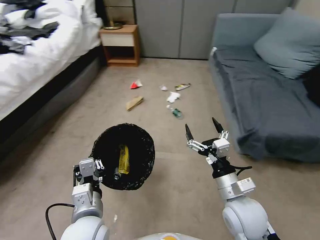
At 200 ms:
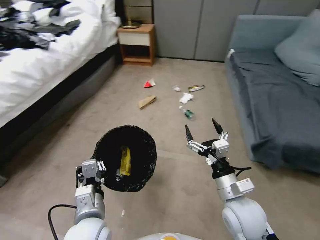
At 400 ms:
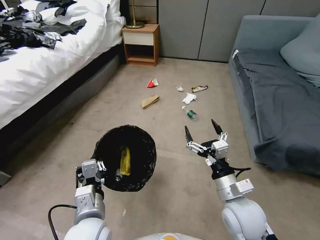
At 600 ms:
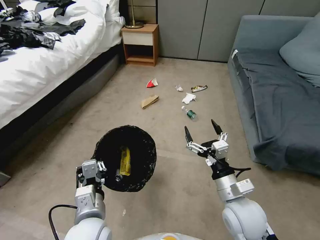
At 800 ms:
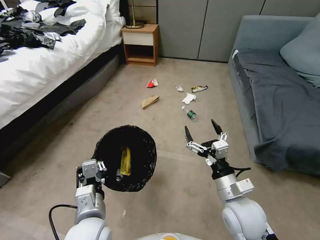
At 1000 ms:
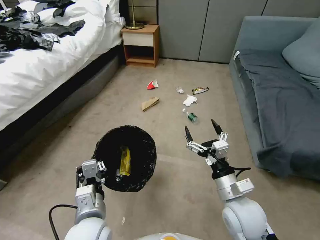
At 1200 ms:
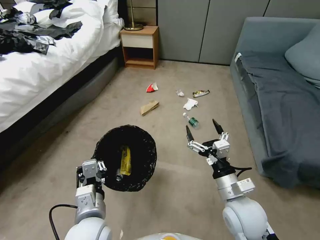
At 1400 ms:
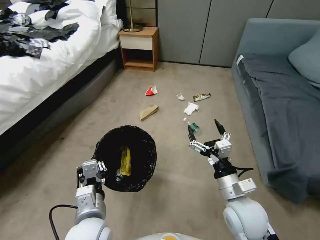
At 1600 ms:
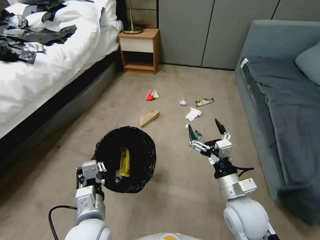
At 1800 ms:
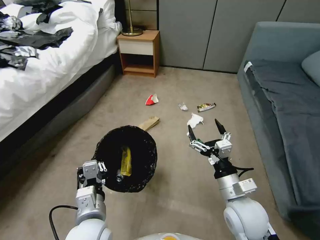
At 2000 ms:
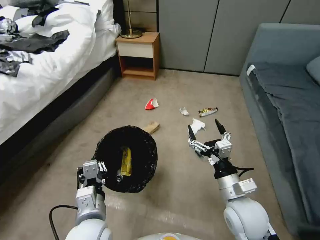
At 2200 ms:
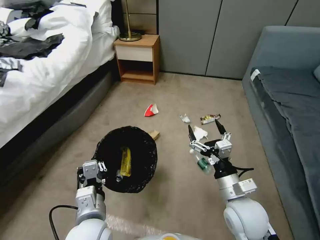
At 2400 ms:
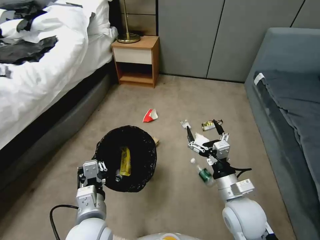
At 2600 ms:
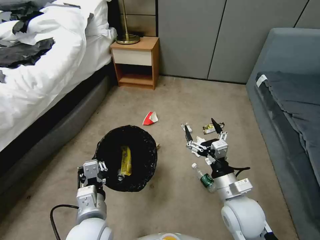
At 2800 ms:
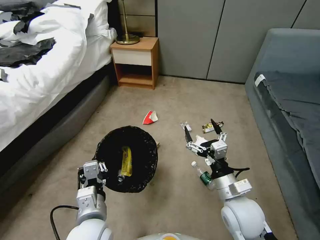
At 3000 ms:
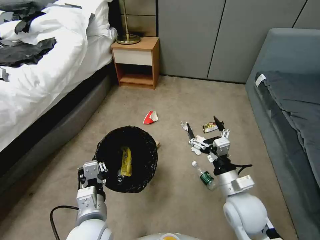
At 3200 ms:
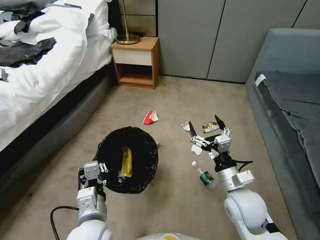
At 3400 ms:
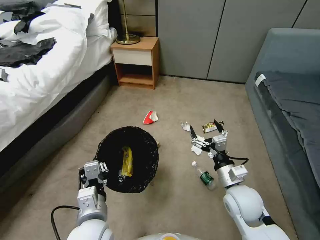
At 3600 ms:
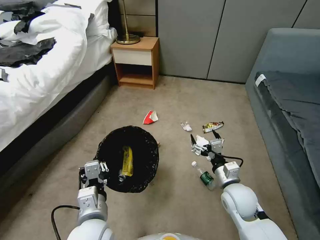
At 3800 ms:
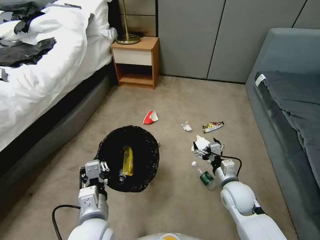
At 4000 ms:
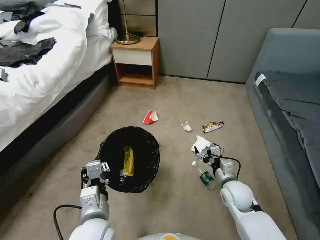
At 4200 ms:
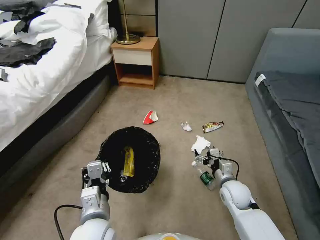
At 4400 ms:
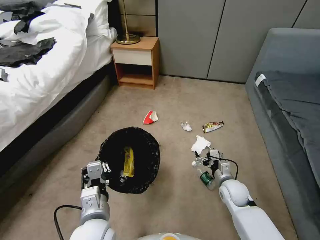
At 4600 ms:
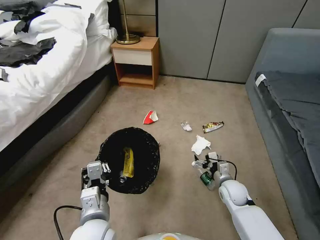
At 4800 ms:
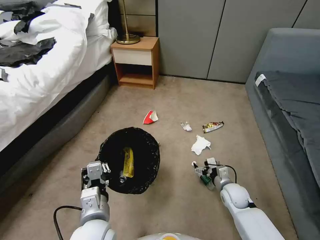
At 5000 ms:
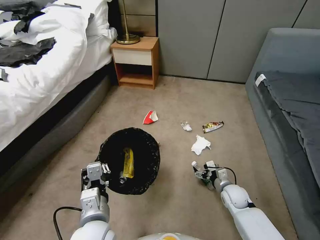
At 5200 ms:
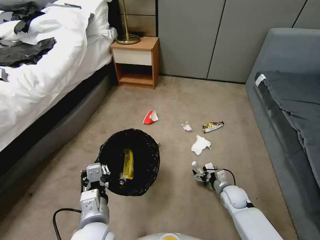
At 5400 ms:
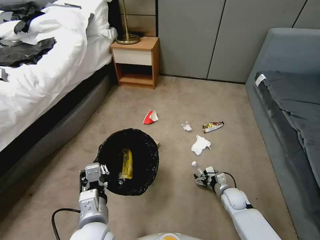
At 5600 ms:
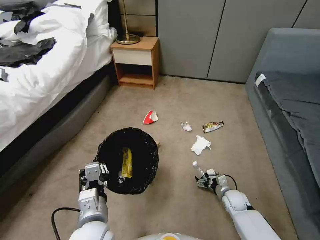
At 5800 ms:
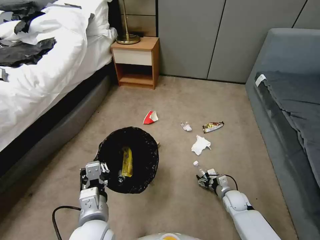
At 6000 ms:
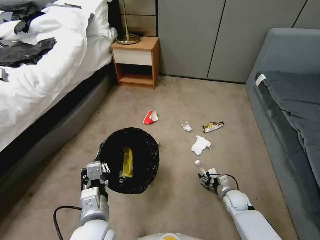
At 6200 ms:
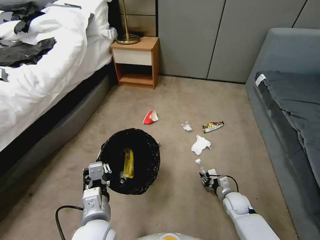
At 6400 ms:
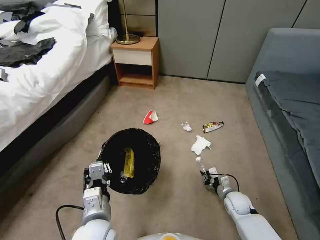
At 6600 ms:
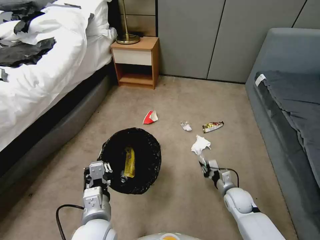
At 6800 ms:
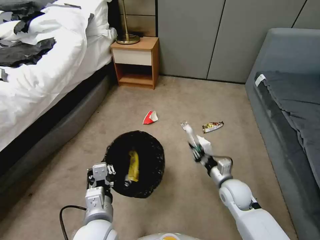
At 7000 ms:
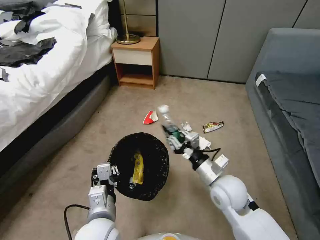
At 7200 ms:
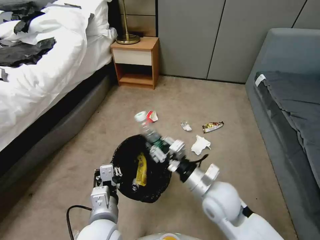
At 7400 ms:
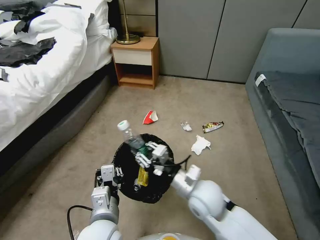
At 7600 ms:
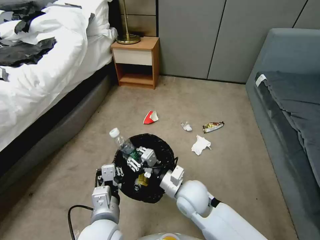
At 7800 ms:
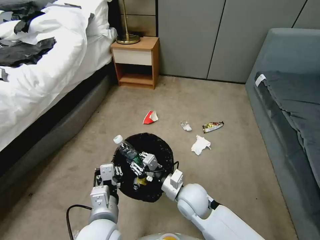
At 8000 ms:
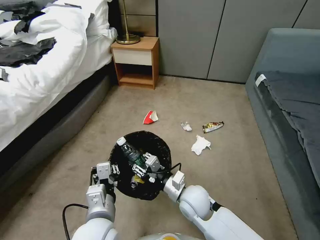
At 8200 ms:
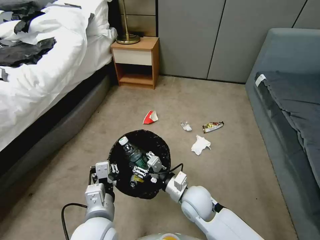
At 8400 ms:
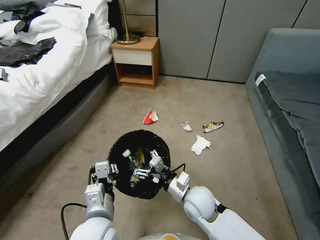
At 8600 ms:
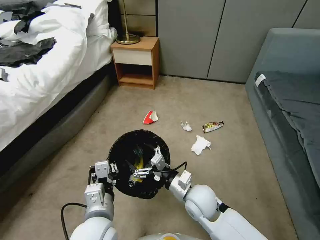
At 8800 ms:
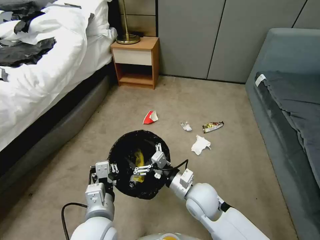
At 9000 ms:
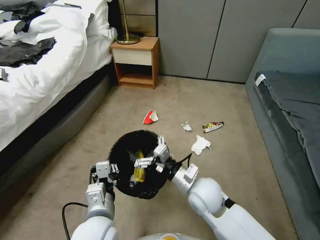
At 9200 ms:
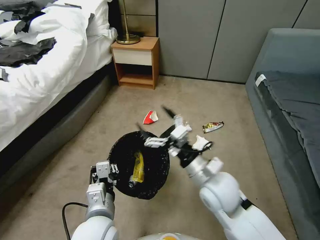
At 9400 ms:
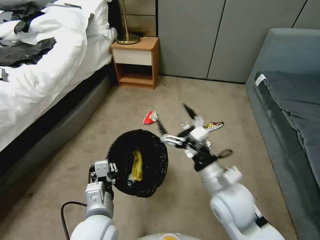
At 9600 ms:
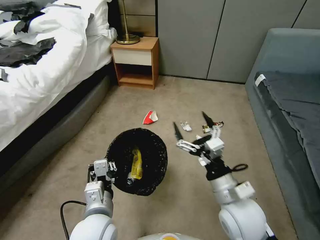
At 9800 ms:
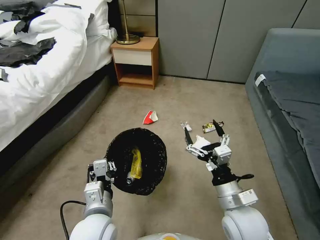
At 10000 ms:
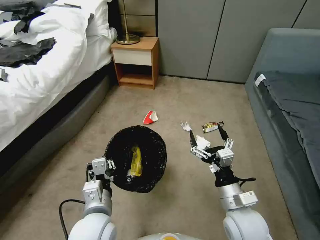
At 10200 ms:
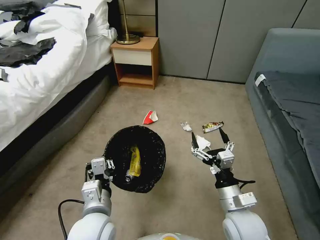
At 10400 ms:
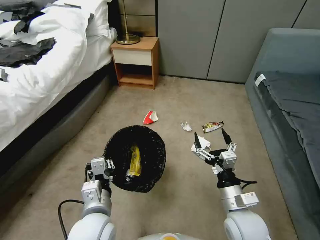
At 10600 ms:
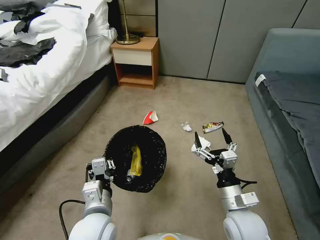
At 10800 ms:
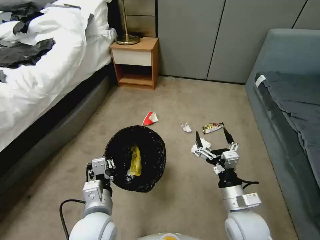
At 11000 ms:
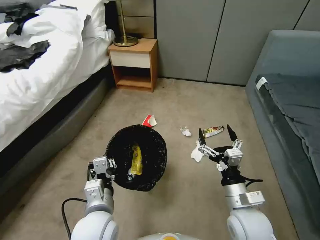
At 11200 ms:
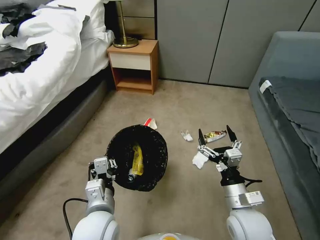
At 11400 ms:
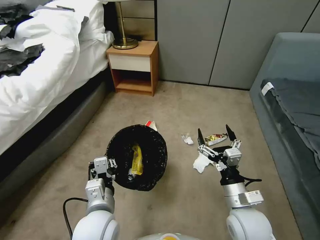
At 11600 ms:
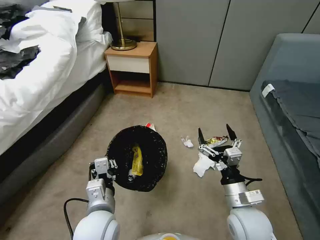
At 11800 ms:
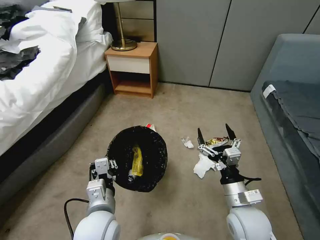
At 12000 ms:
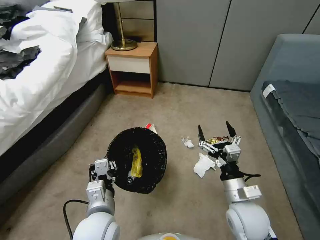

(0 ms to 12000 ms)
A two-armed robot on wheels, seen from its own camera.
Task of the whole recording: Pick up the trash bin, then pick up the garbage from the floor and place it into the trash bin.
3000 ms - 4400 ms: The right gripper heads downward and forward, covering some 15 cm.
4400 ms - 6000 ms: The right gripper shifts about 10 cm downward, and closes up.
6000 ms - 7600 ms: The right gripper heads to the left and upward, covering about 30 cm, and closes its fingers.
7600 ms - 9000 ms: The right gripper moves about 5 cm, and opens up.
9000 ms - 10400 ms: The right gripper moves to the right and backward, some 10 cm.

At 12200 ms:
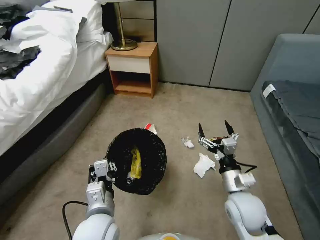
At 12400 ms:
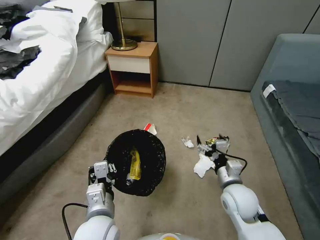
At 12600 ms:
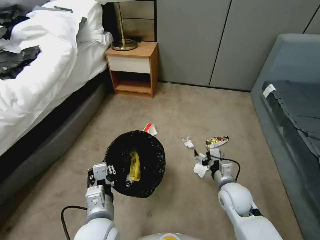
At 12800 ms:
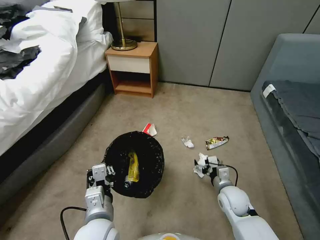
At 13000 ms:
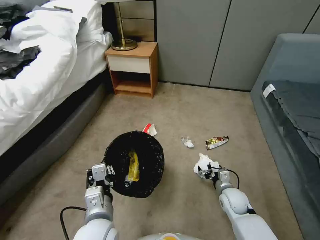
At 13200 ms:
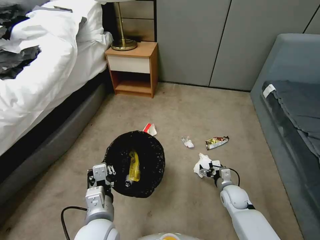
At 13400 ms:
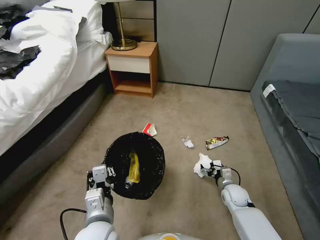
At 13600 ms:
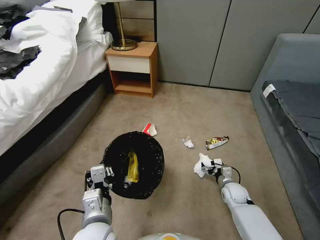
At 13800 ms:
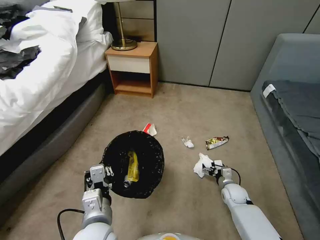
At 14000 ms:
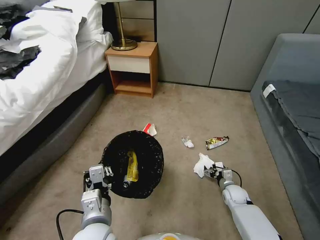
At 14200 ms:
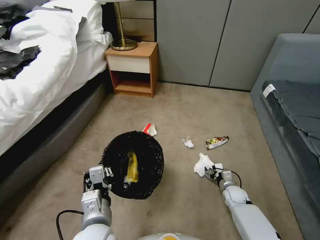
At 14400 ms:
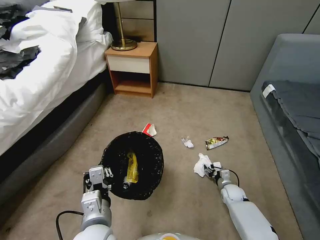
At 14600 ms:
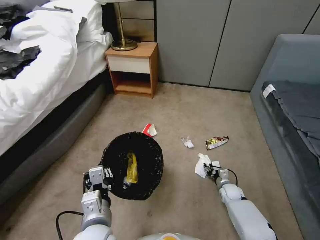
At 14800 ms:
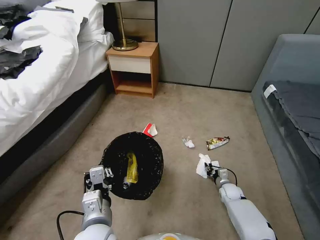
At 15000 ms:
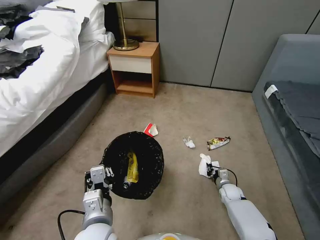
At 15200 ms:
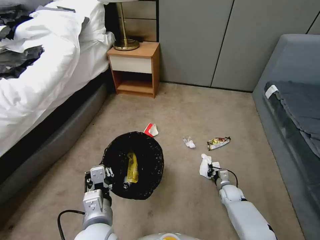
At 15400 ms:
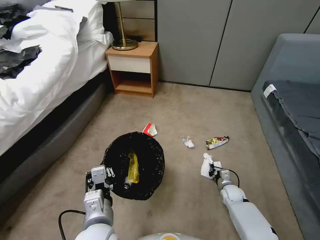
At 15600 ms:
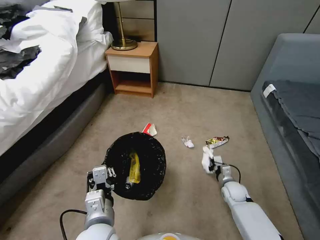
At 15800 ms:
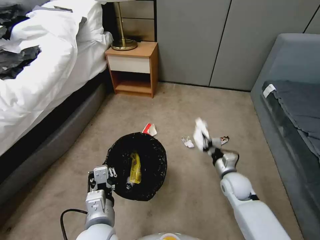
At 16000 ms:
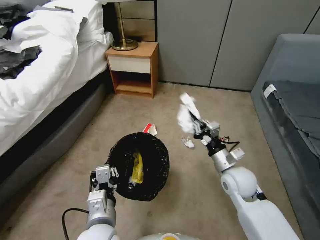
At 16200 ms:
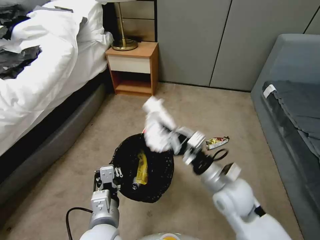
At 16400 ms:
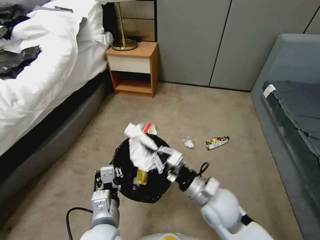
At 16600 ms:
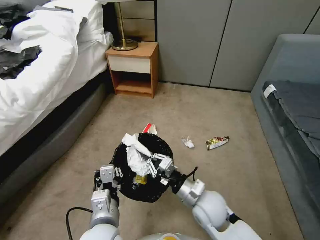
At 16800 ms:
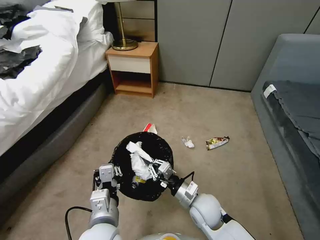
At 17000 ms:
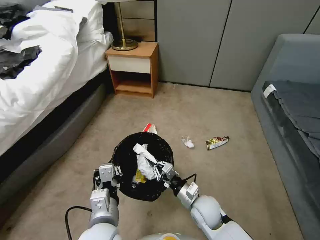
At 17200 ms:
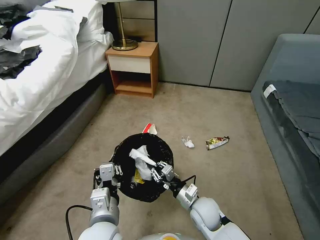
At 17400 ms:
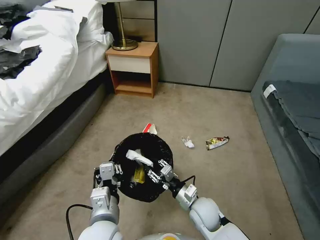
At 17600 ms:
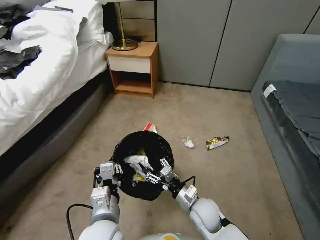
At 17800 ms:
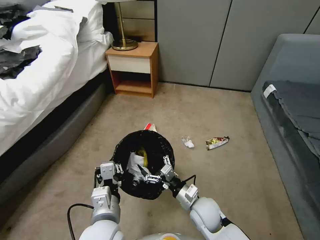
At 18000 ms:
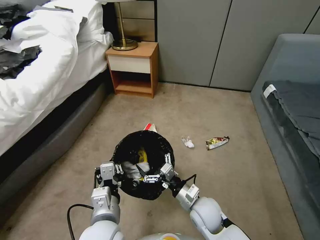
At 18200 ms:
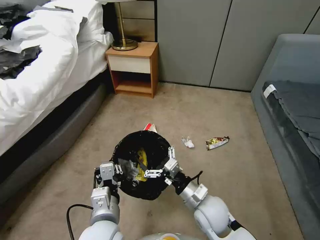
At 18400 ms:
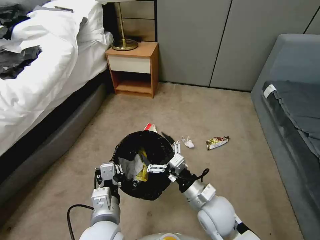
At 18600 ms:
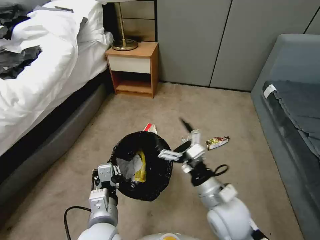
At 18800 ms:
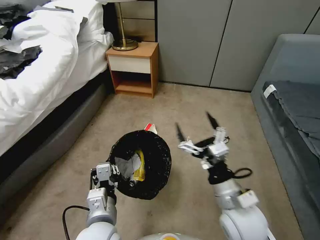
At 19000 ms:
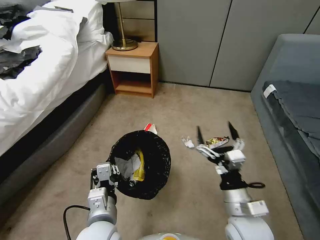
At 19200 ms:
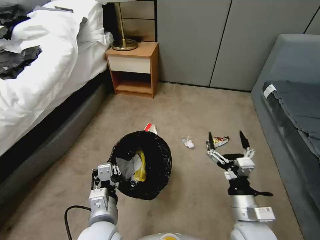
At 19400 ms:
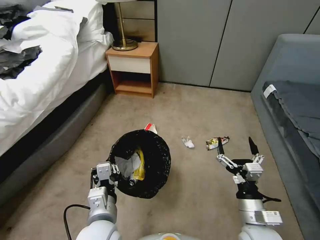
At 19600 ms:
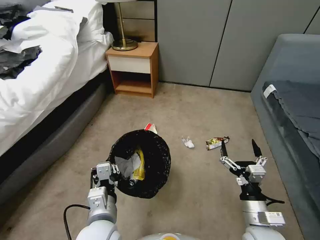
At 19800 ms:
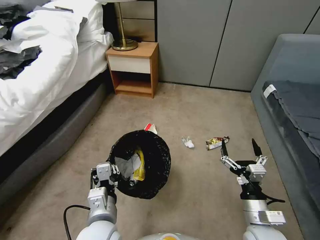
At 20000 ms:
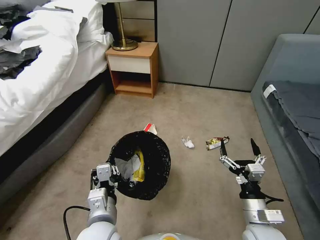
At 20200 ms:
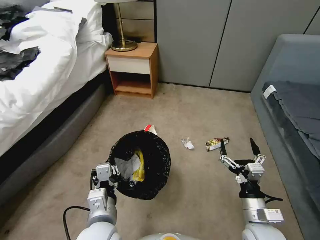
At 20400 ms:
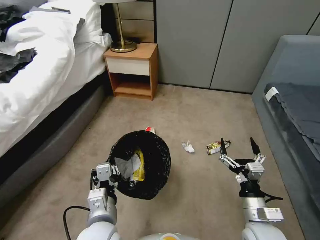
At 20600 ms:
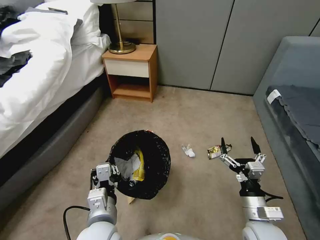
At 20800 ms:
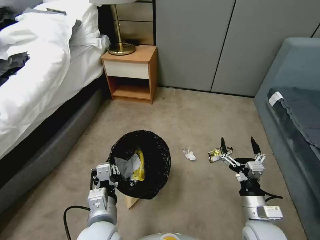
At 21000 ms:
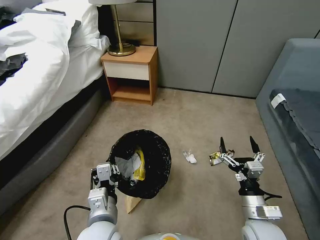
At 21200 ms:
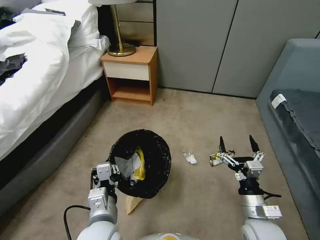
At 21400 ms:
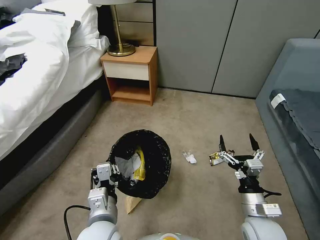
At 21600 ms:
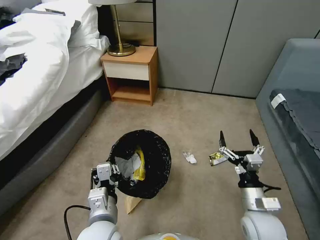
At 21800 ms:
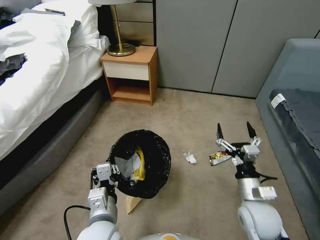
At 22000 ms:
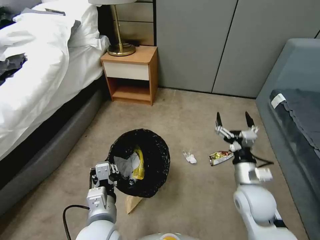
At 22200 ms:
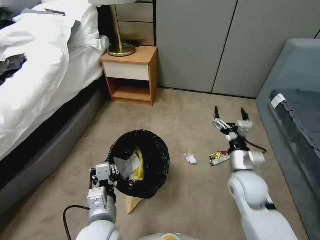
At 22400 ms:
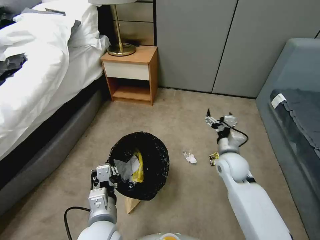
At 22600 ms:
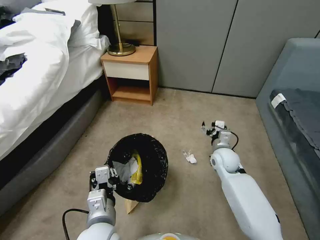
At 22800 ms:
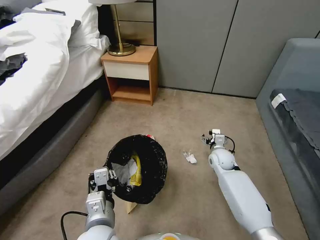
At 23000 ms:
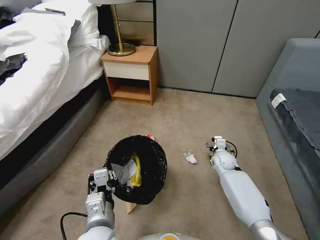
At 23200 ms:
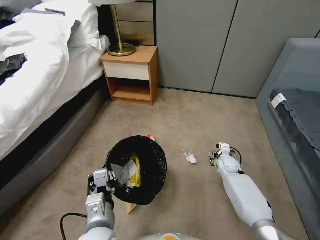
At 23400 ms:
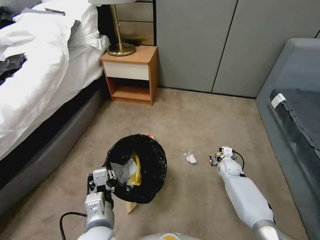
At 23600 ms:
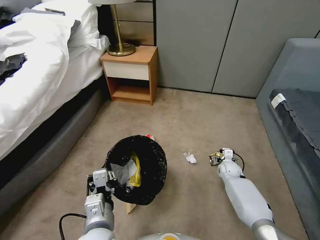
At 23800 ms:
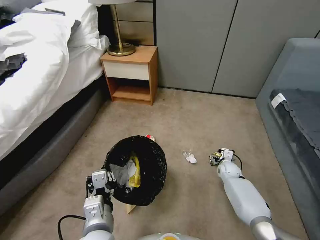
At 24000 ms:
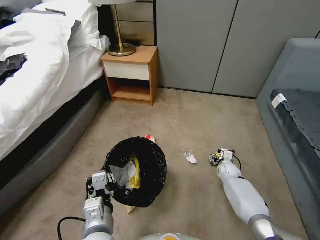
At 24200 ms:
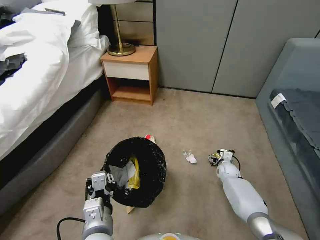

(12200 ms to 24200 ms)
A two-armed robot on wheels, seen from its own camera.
Task of the whole recording: Pick up the trash bin, then pick up the garbage from the floor and place it into the trash bin.
12200 ms - 13800 ms: The right gripper is displaced downward and forward by about 25 cm.
13800 ms - 15200 ms: The right gripper moves about 5 cm, and closes up.
15200 ms - 16600 ms: The right gripper moves upward, to the left and backward, about 30 cm.
16600 ms - 18200 ms: The right gripper reaches approximately 10 cm downward, then returns, and opens its fingers.
18200 ms - 19800 ms: The right gripper moves to the right and backward, approximately 15 cm.
21200 ms - 22600 ms: The right gripper travels forward by roughly 25 cm.
22600 ms - 24200 ms: The right gripper shifts roughly 20 cm downward and to the right.
